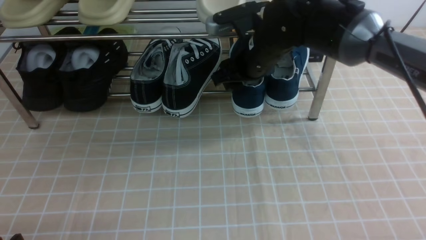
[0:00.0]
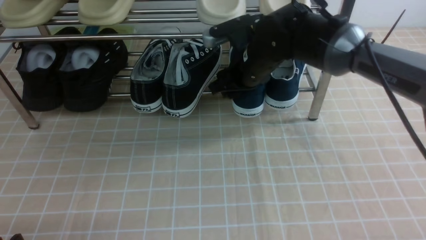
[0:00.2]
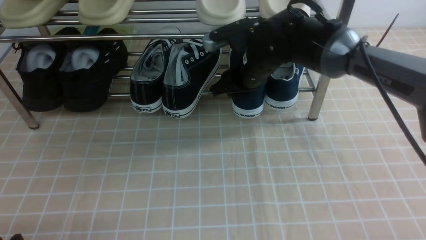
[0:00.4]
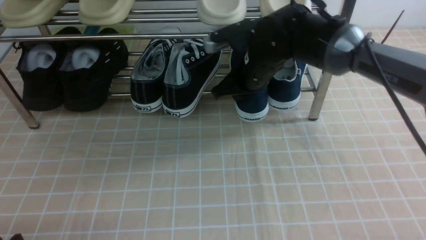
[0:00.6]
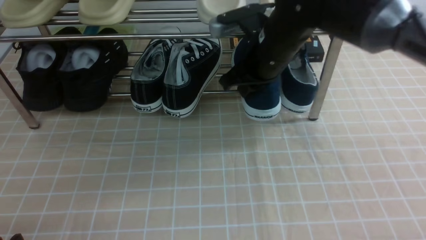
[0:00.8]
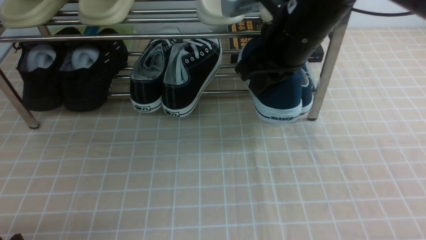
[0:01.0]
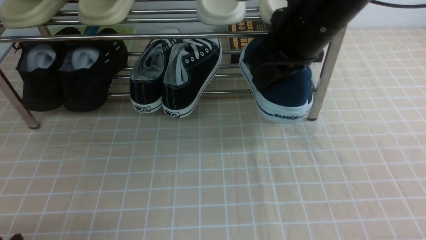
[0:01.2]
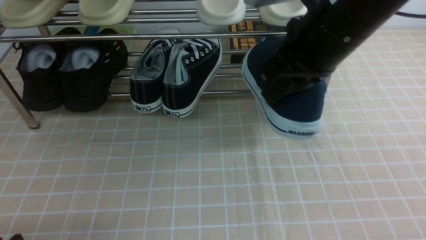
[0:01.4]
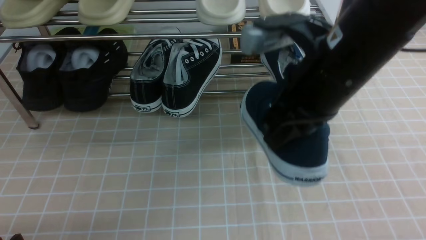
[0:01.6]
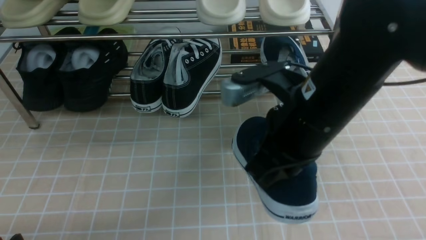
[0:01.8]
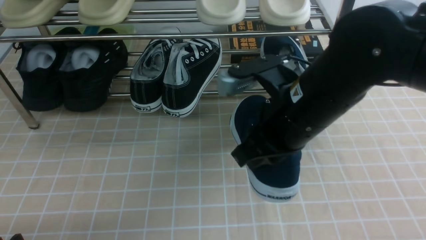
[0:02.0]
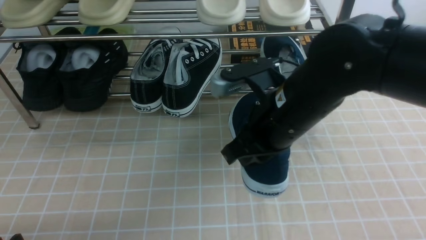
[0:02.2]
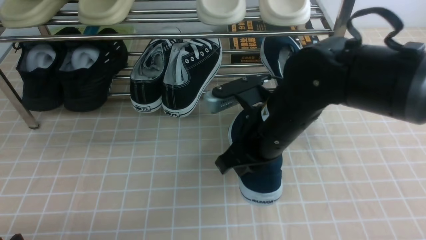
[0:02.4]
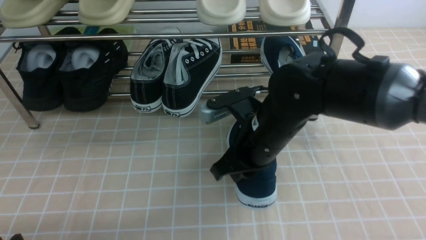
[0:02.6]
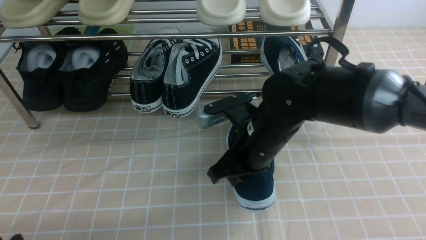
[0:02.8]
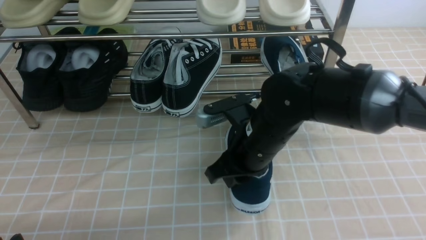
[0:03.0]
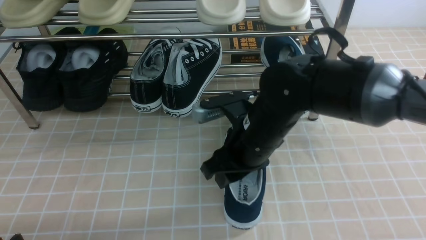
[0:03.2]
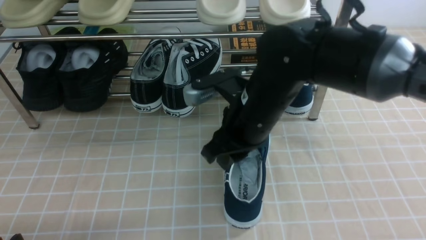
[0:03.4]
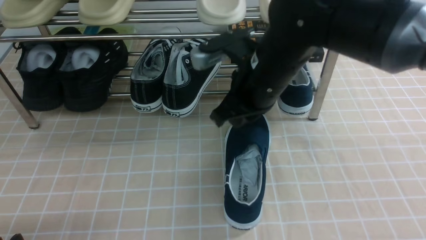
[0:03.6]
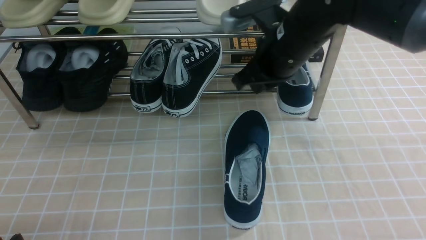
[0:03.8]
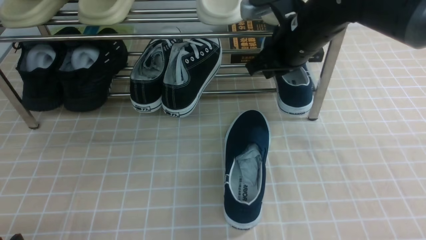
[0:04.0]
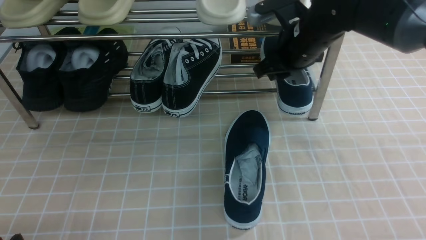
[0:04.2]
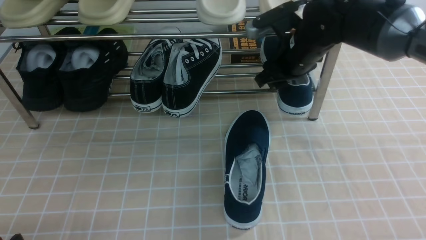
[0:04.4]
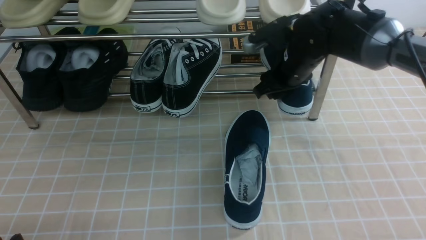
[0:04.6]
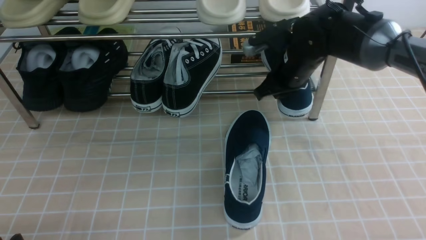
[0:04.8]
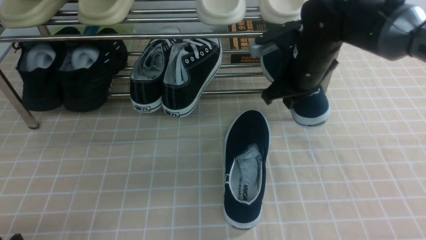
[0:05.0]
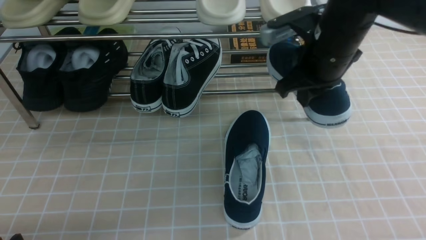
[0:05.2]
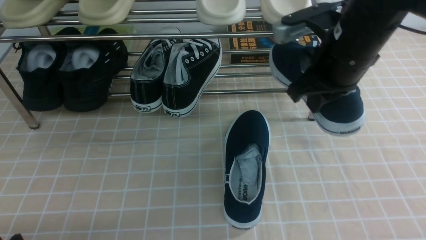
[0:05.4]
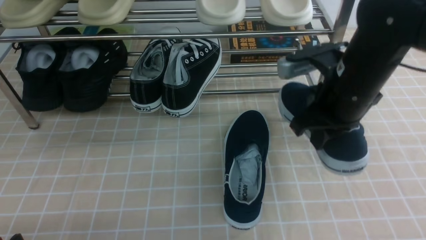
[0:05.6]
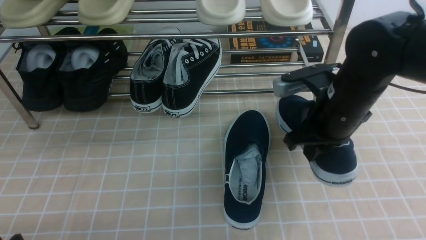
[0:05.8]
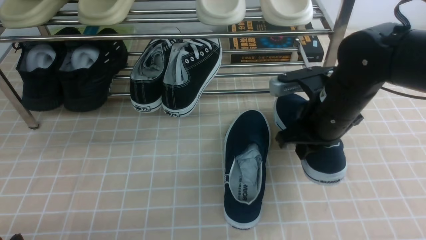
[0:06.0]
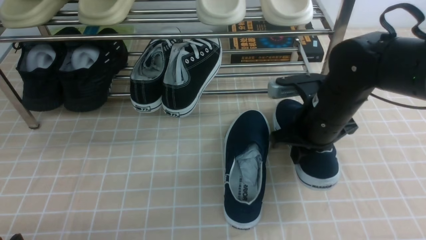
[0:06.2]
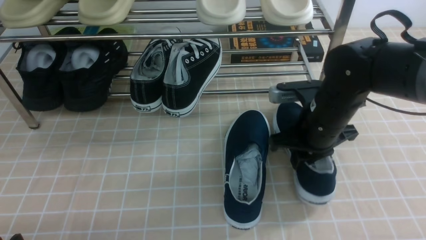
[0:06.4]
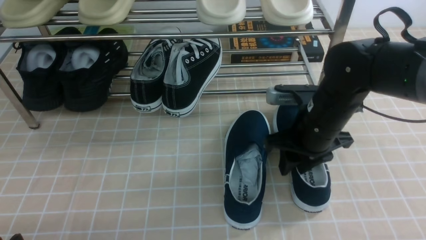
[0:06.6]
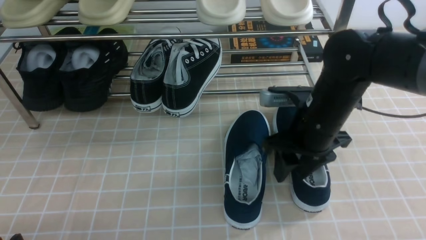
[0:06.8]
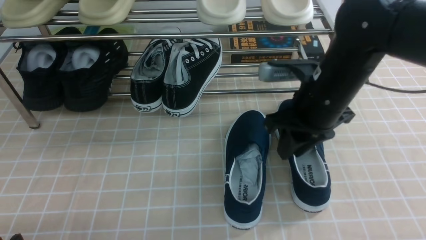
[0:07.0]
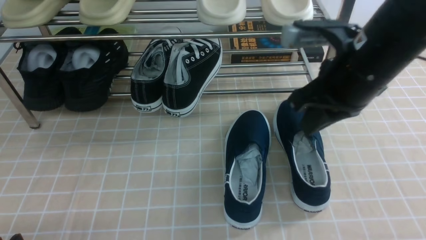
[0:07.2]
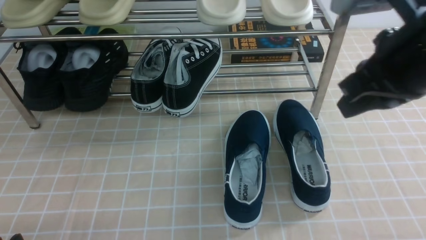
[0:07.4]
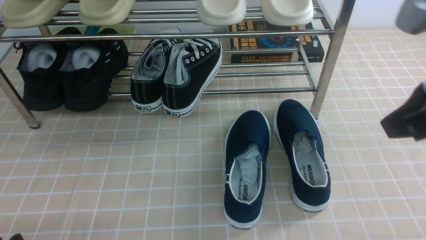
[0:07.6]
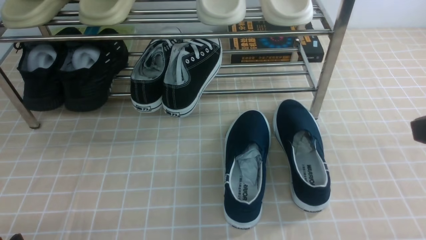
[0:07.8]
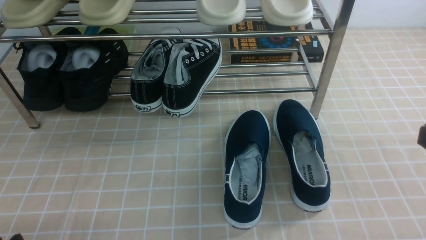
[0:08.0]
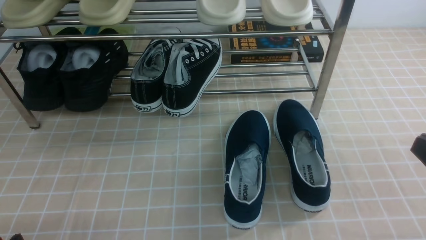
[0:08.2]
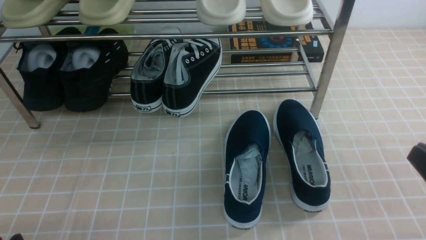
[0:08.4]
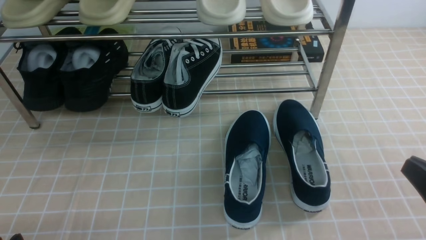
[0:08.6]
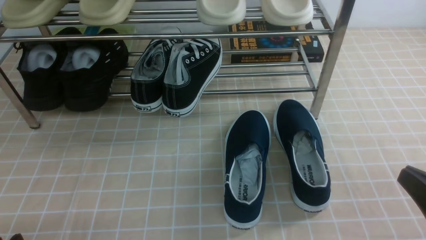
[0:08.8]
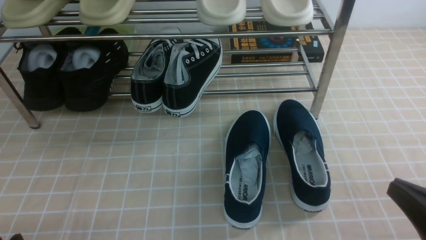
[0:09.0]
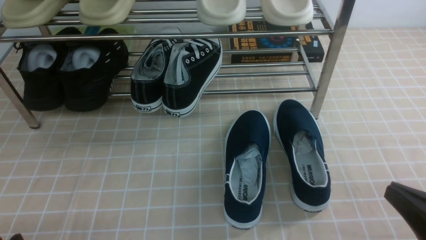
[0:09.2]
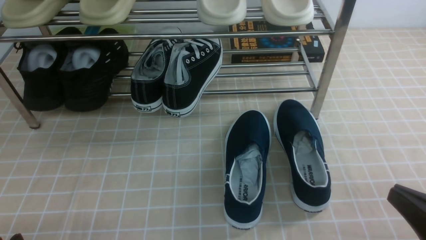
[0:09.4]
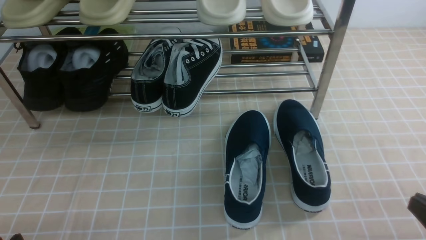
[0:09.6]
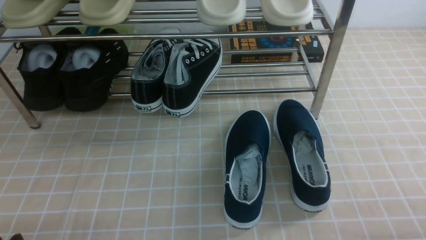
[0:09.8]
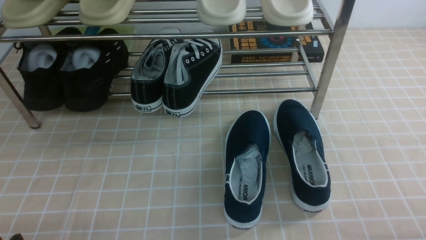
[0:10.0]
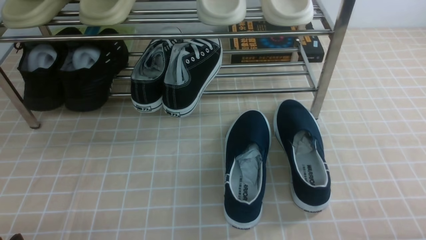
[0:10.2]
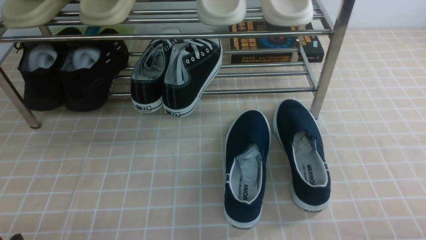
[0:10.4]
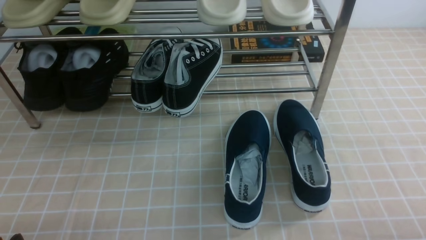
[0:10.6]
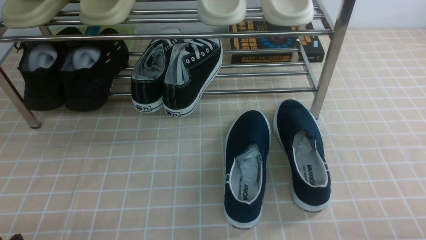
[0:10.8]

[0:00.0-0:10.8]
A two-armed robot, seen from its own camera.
Step, 0:00.6 to 0:03.2: use the right arm to take out the clamped shoe from the shoe rack and put it down.
Step, 0:03.4 to 0:04.6: use the right arm to clamp a shoe on the right side of the shoe rack.
Step, 0:05.0 to 0:07.0: use the right arm to take out the clamped shoe from the shoe rack and put it down.
0:00.0 to 0:01.6: The right gripper goes approximately 20 cm backward and upward, and closes up.
0:01.6 to 0:03.0: The right gripper goes approximately 15 cm downward and to the left.
0:03.0 to 0:04.6: The right gripper heads forward and to the right, covering about 15 cm.
0:04.6 to 0:06.2: The right gripper moves backward, approximately 10 cm, and closes.
0:06.2 to 0:07.8: The right gripper moves backward, upward and to the right, approximately 25 cm, and opens, then closes once more.
0:07.8 to 0:09.2: The right gripper is displaced downward by some 15 cm.
0:09.2 to 0:10.8: The right gripper goes about 5 cm to the right and downward.

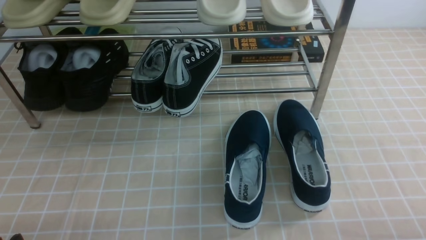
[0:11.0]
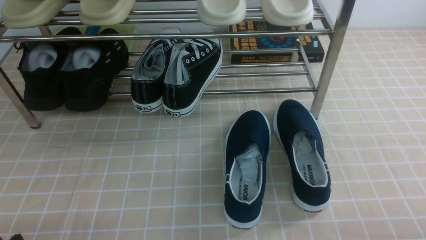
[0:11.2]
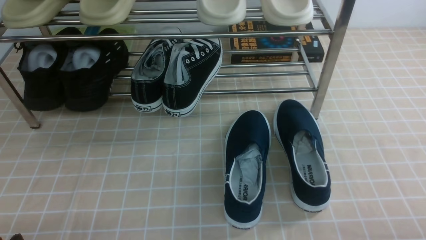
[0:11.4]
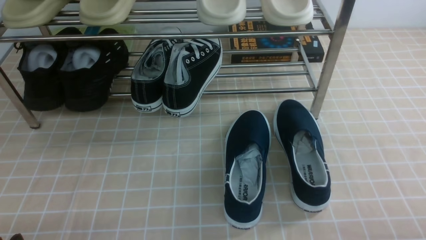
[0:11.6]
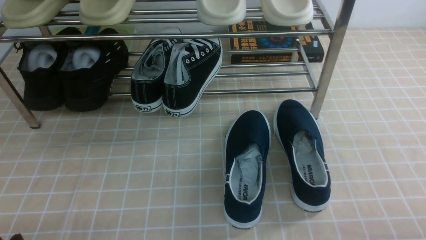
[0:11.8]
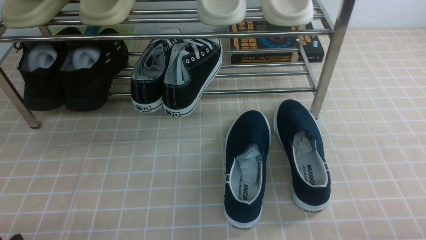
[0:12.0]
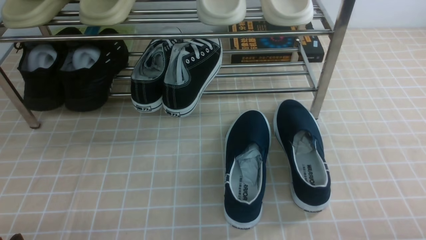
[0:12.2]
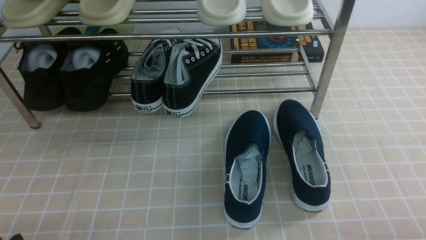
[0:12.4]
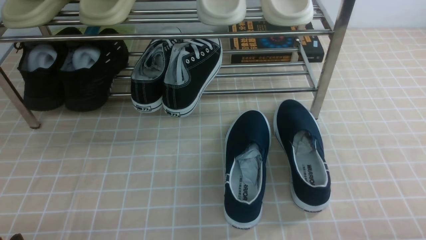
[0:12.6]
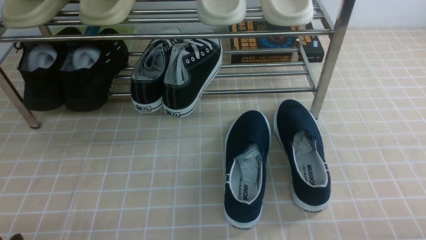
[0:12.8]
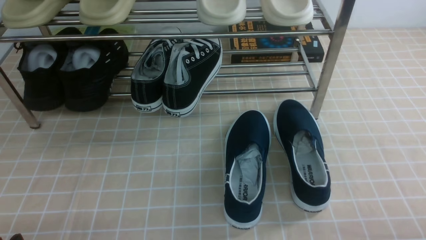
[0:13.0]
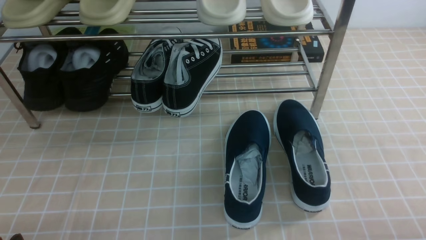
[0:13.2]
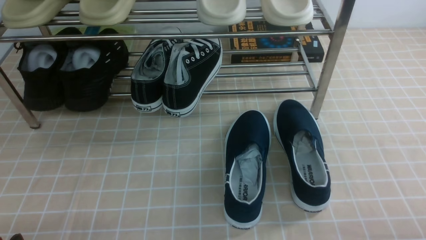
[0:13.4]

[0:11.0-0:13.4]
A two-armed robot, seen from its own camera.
0:11.0 to 0:13.4: Both grippers stay put.
